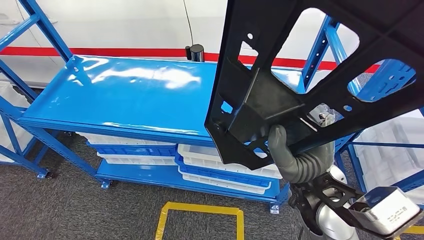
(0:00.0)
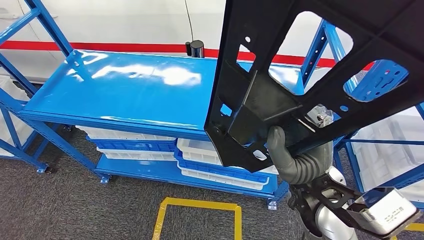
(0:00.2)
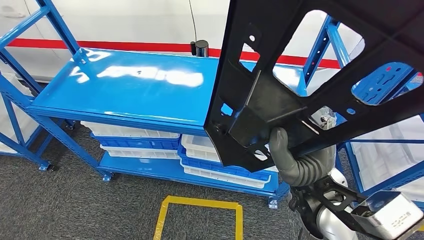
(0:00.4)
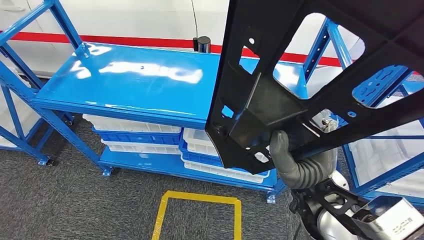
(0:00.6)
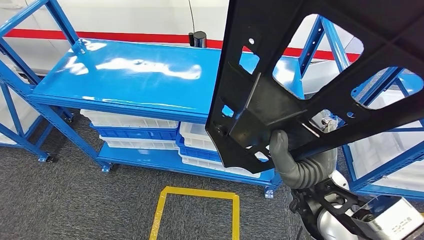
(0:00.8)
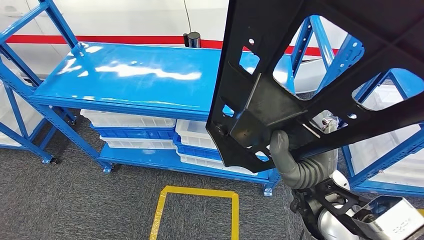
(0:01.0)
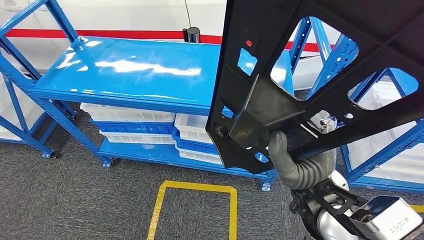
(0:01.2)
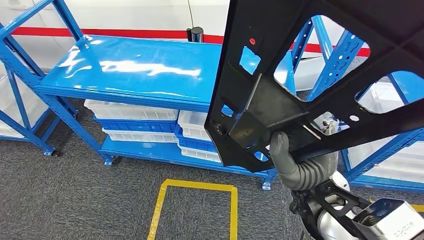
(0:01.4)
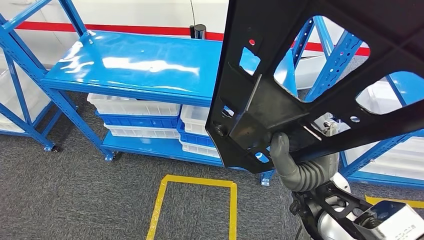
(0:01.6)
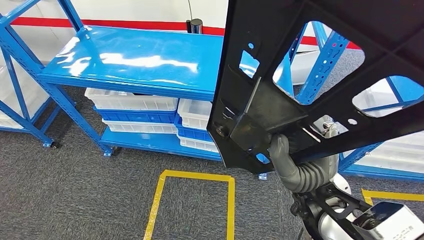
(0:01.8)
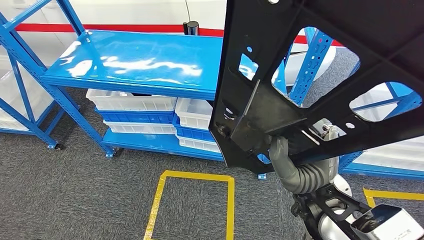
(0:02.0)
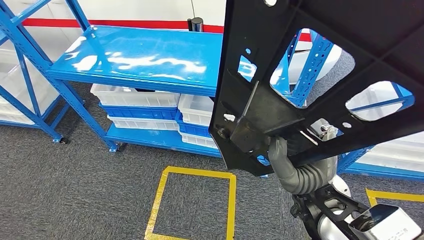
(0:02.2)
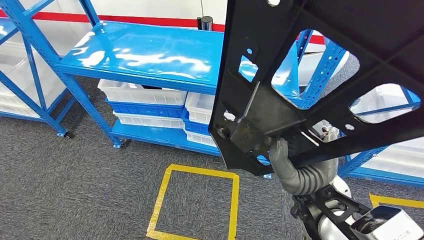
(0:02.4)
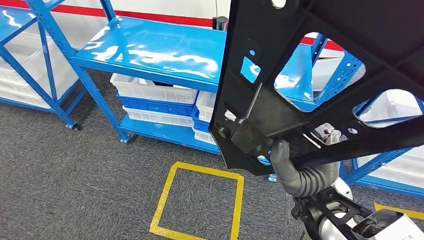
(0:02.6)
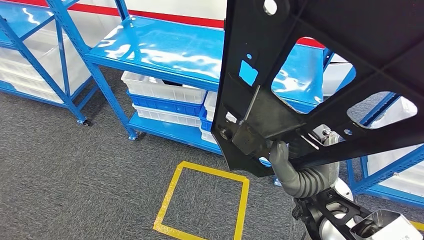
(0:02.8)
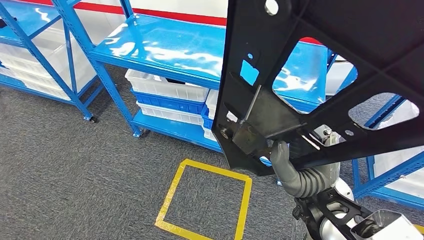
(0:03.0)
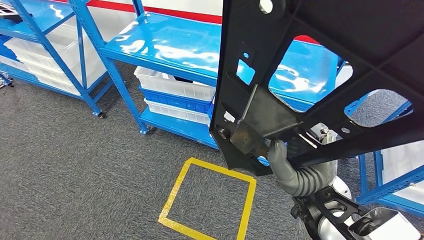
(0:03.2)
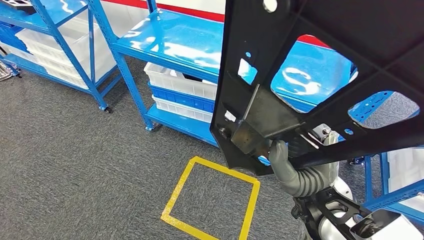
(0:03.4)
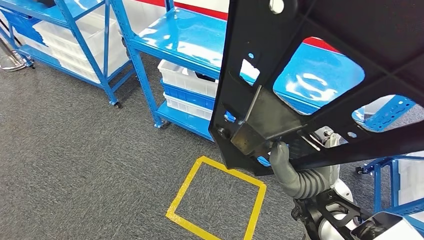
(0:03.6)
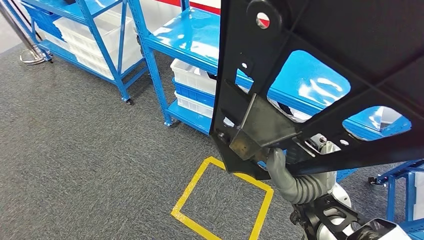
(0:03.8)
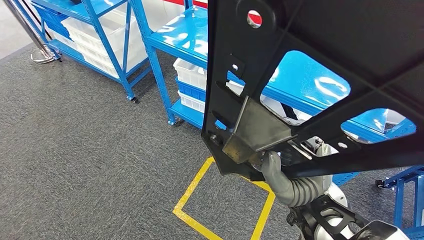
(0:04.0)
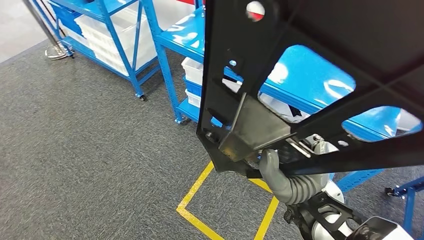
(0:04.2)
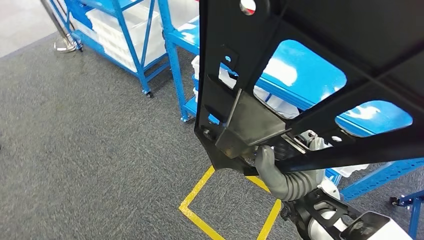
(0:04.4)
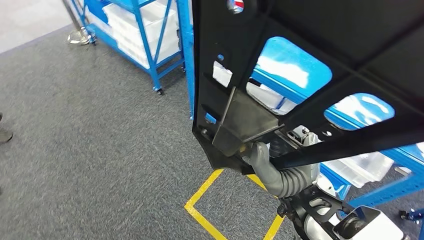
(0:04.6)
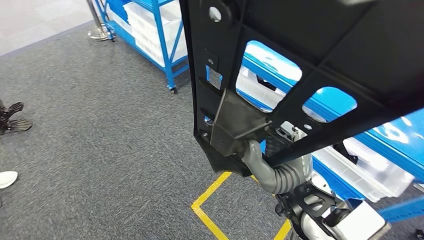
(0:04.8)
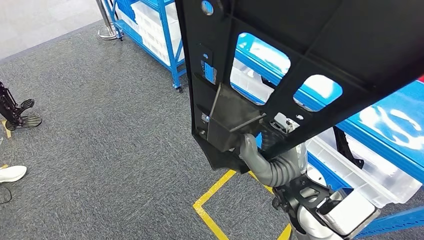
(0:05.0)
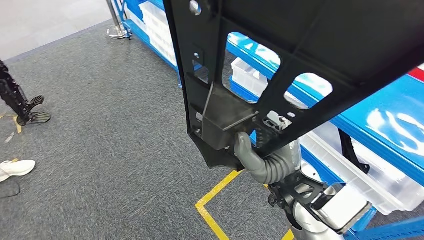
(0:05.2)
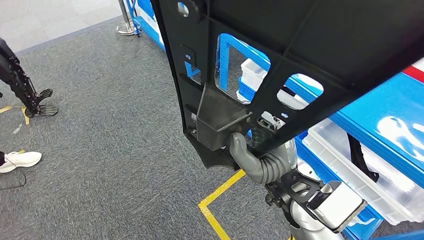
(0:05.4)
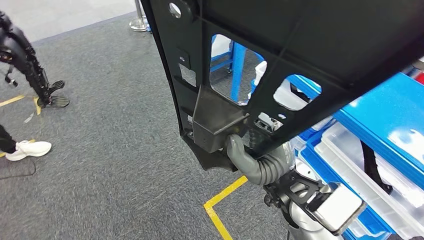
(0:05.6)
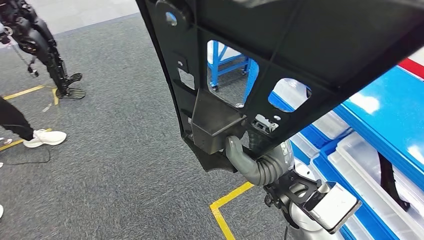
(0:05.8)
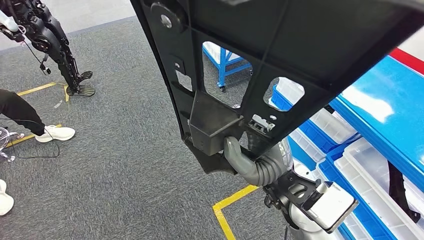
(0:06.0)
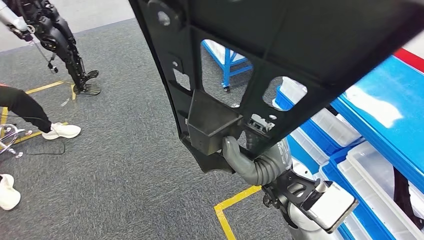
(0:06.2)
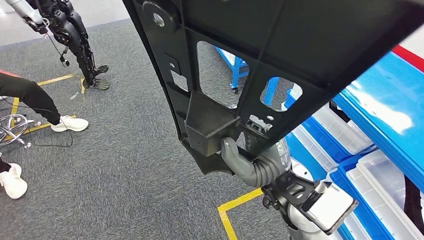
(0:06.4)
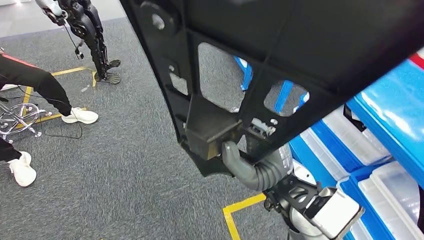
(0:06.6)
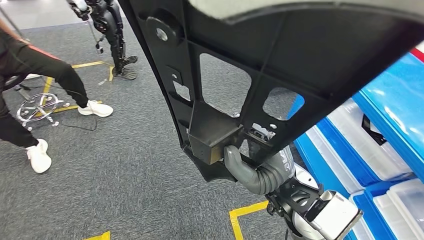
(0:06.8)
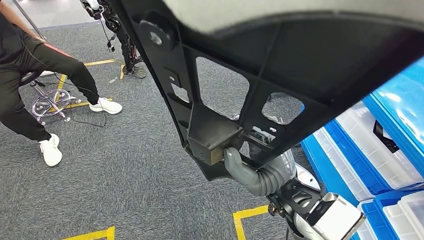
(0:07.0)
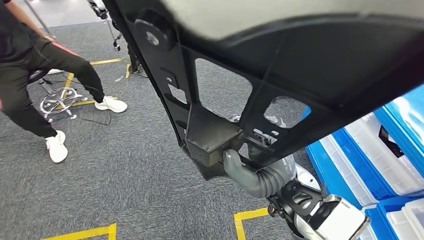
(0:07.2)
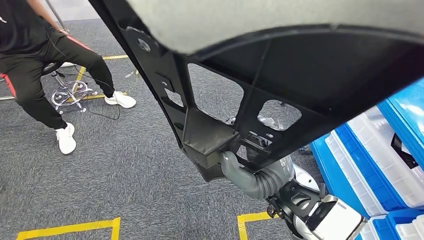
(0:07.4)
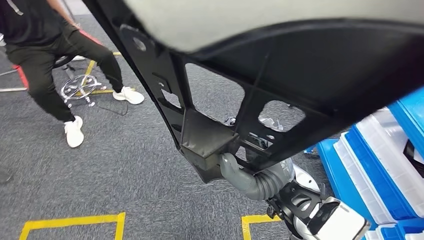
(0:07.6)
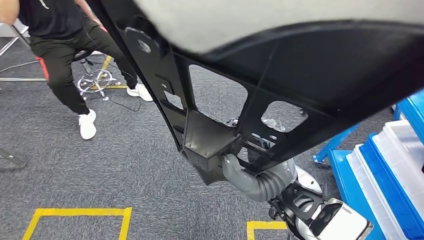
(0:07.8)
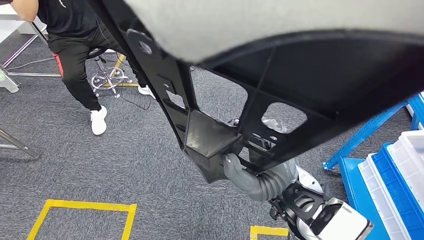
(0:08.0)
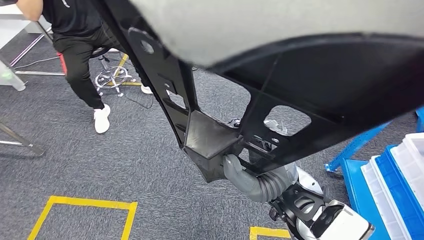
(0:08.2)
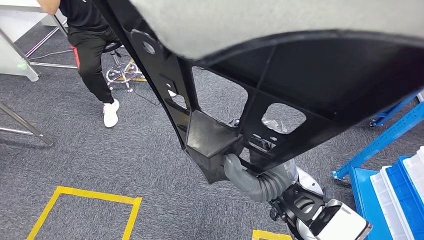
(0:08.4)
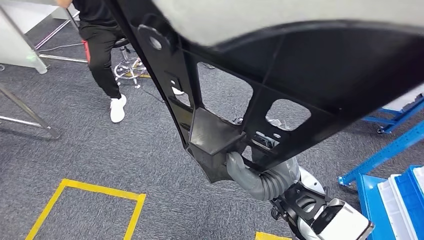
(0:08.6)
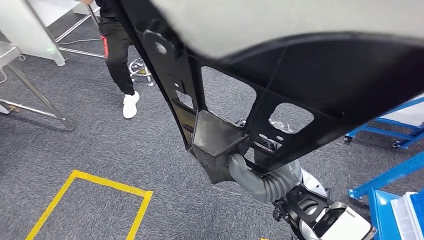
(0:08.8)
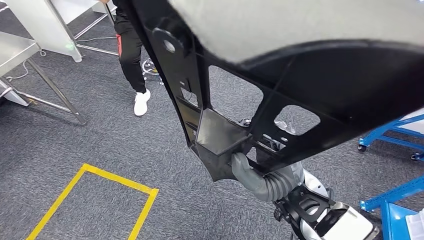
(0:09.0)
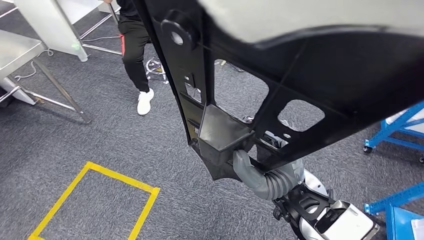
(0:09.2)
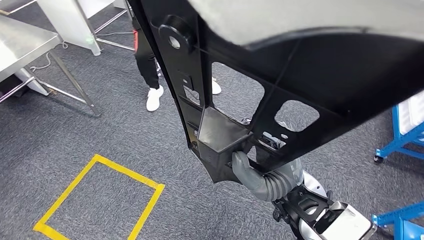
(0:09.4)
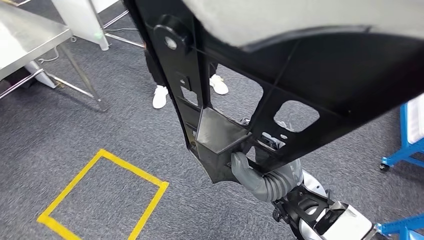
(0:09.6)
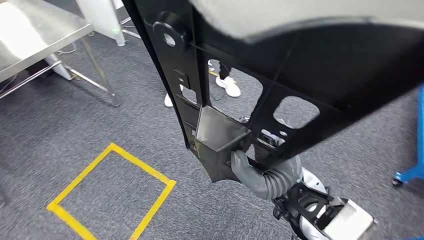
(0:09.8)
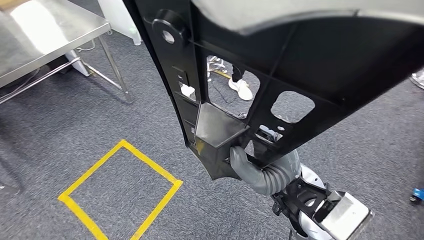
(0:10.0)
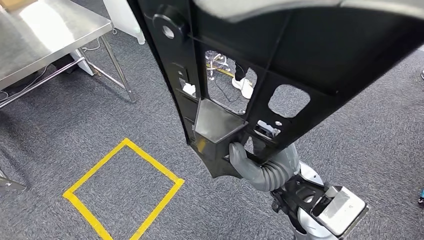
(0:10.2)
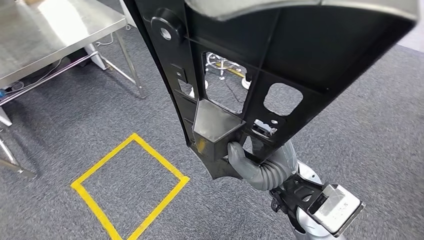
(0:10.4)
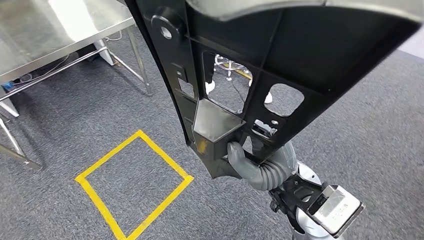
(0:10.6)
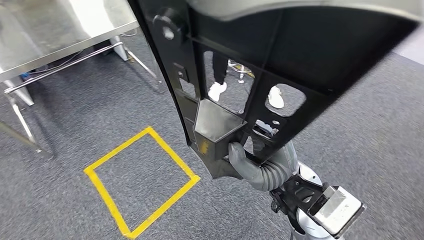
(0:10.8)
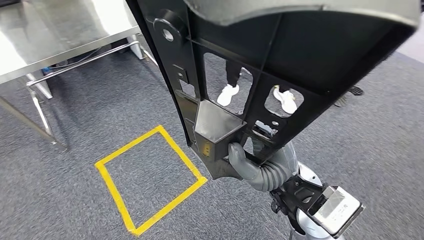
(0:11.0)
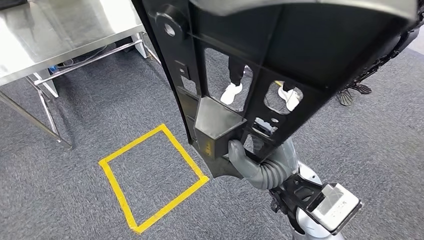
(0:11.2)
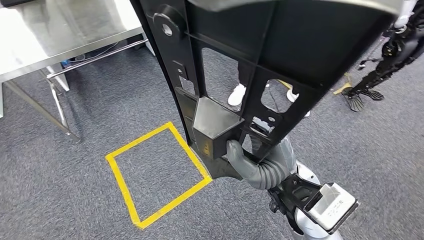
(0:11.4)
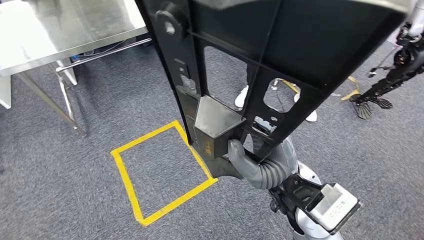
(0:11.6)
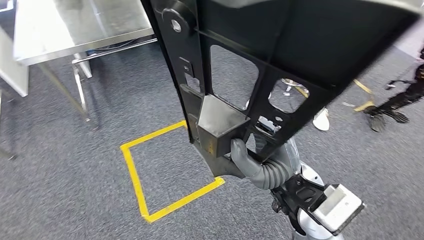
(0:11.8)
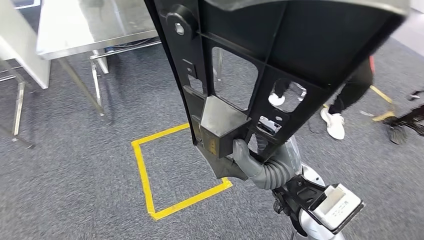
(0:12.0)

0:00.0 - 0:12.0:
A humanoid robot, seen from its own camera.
Step, 0:00.0 - 0:02.2: Pick up the large parts from the shelf.

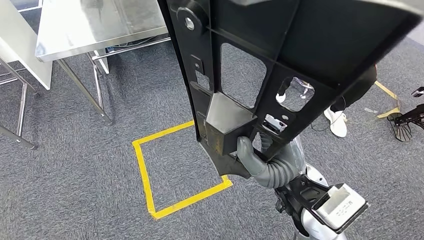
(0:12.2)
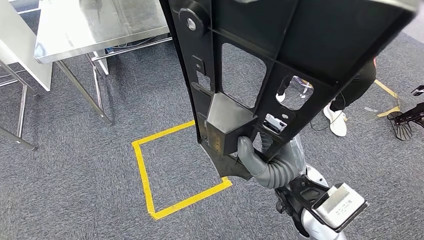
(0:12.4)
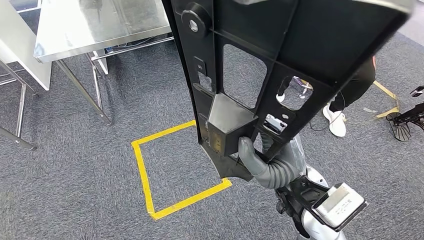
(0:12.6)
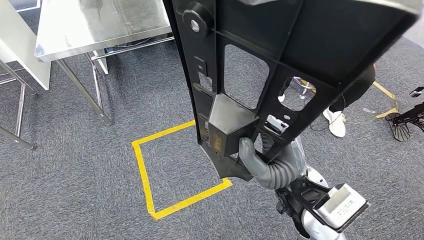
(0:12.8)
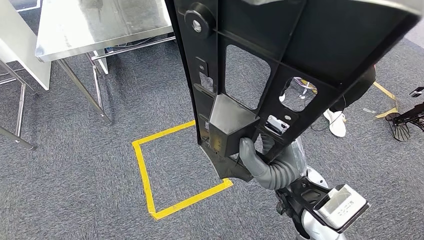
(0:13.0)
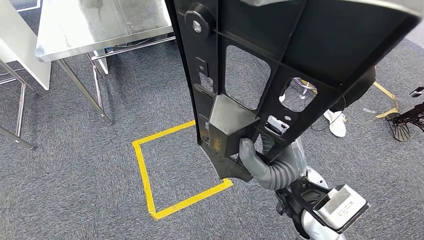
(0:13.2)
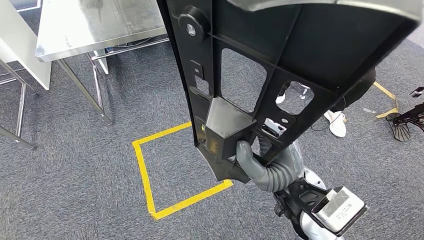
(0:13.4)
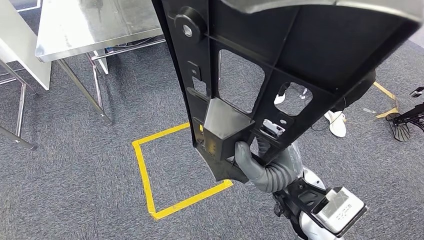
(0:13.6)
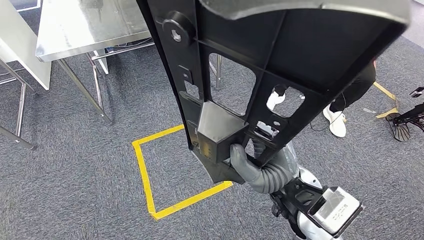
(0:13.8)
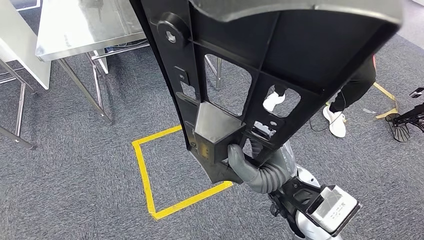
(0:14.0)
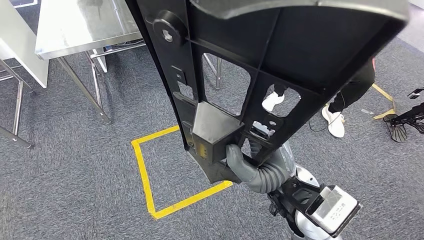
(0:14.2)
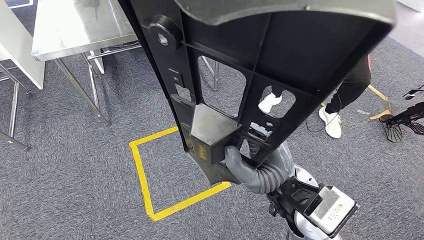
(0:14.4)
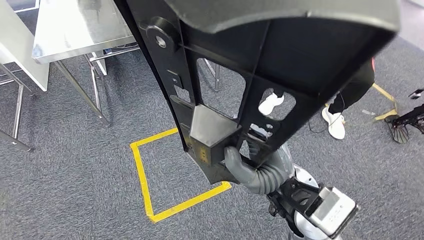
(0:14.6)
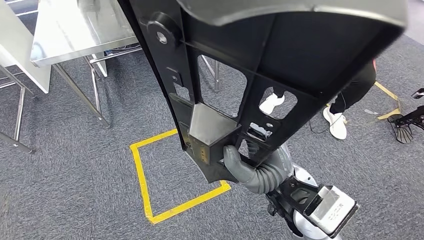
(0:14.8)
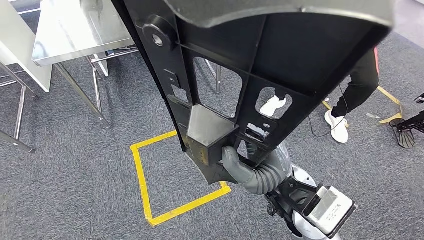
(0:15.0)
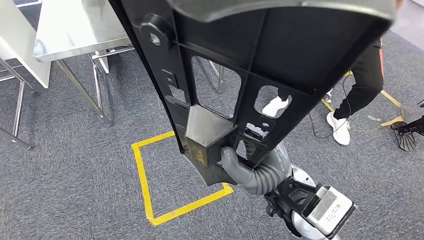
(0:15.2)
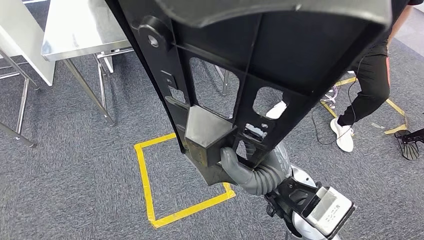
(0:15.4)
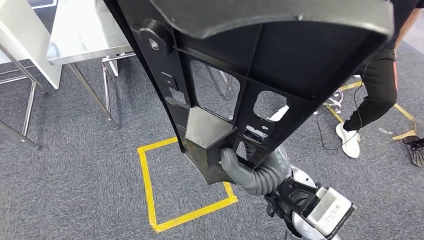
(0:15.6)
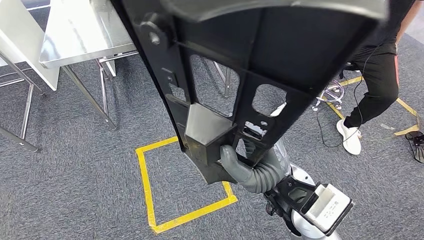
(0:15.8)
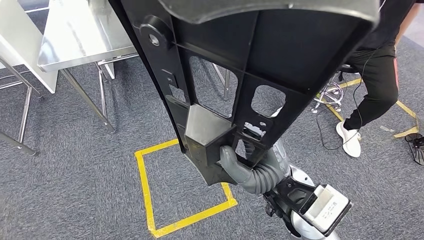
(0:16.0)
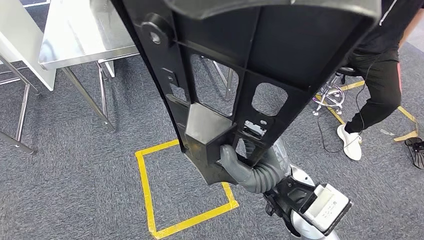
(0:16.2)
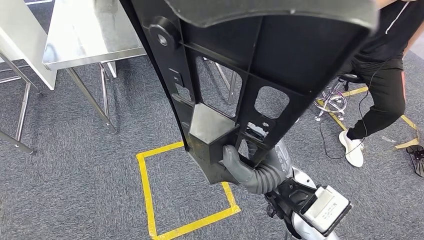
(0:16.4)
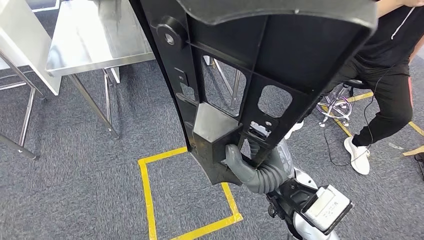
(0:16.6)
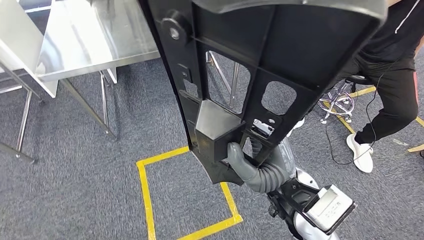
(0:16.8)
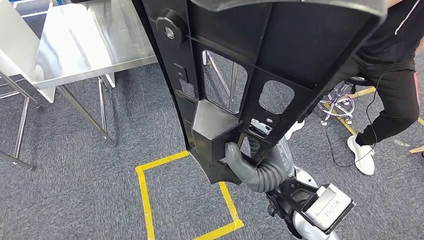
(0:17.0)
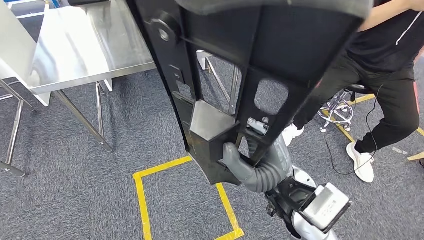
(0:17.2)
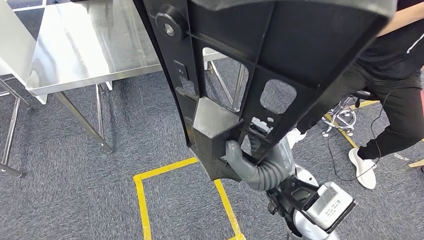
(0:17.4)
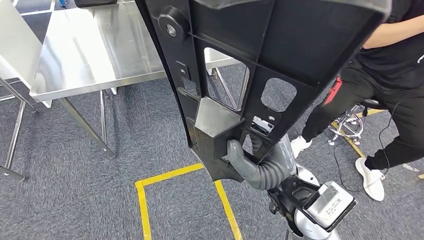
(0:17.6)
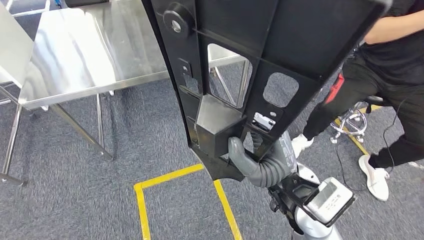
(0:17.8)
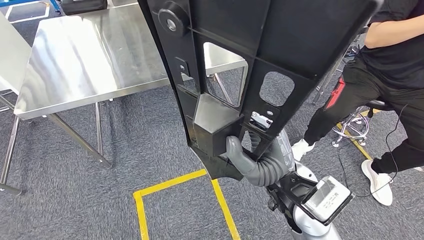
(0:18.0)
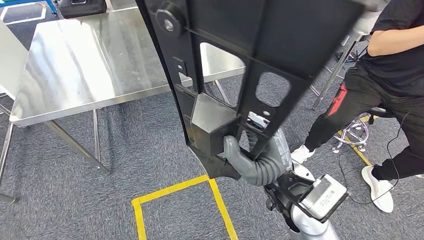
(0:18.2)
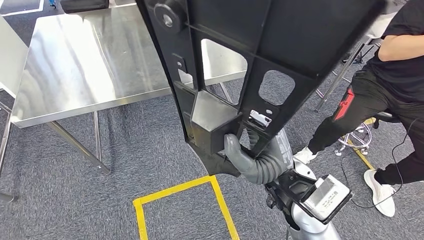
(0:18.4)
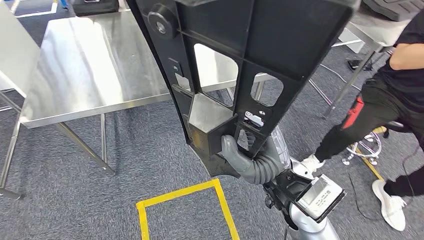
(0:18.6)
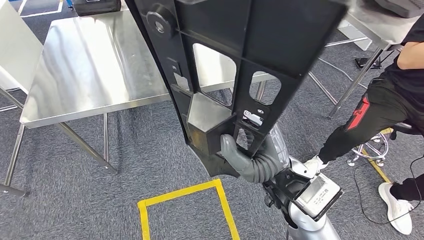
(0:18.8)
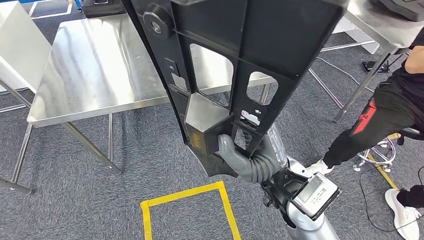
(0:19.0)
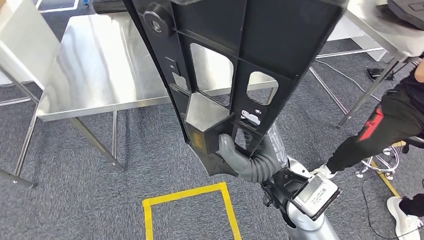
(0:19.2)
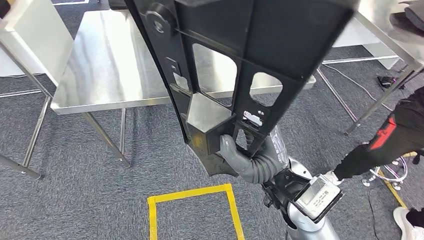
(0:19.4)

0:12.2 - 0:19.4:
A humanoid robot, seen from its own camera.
0:12.2 - 0:13.6: The two hands keep their place.
